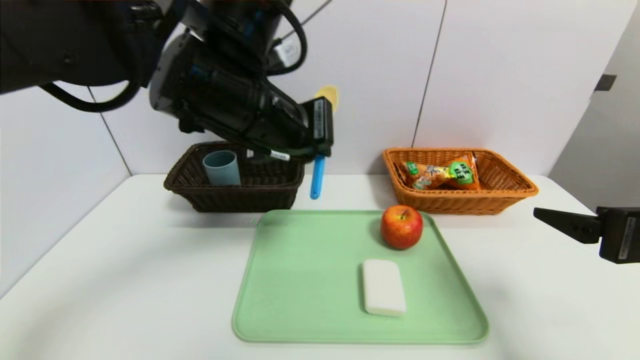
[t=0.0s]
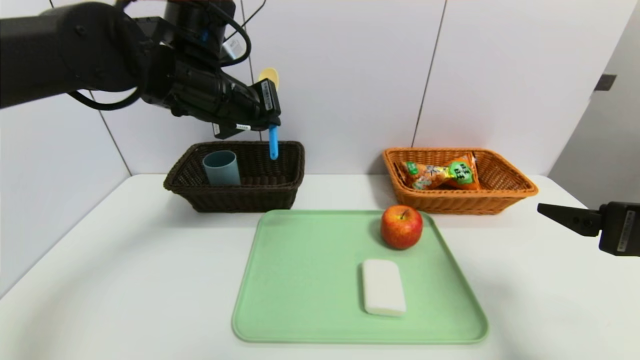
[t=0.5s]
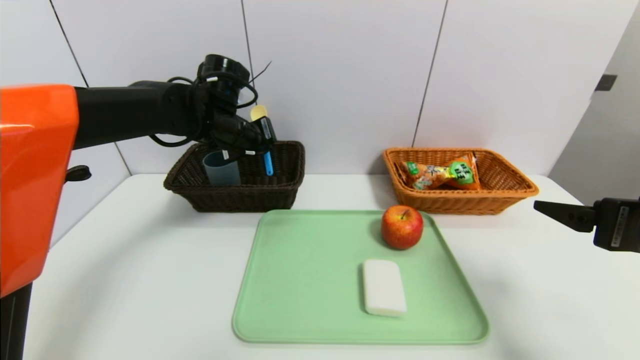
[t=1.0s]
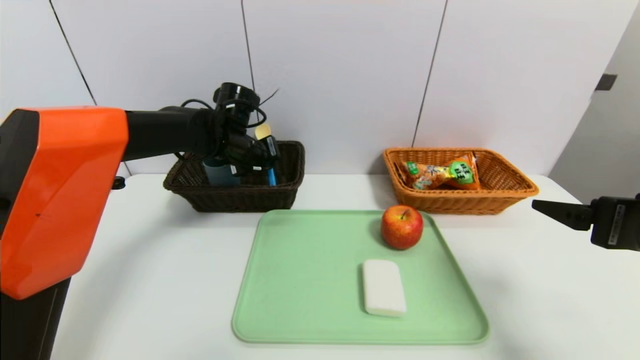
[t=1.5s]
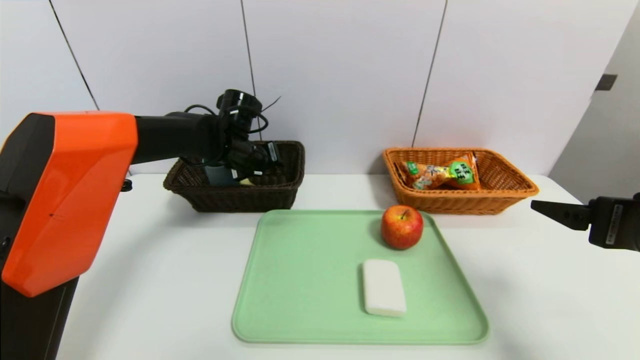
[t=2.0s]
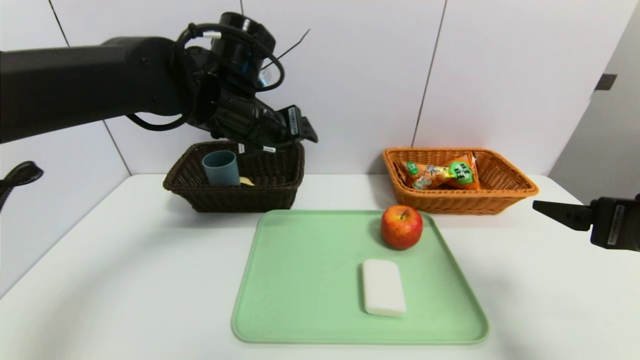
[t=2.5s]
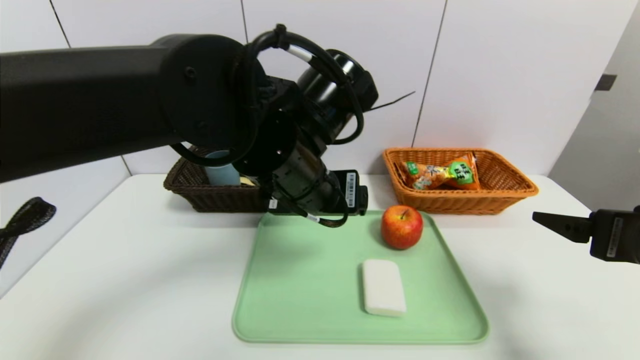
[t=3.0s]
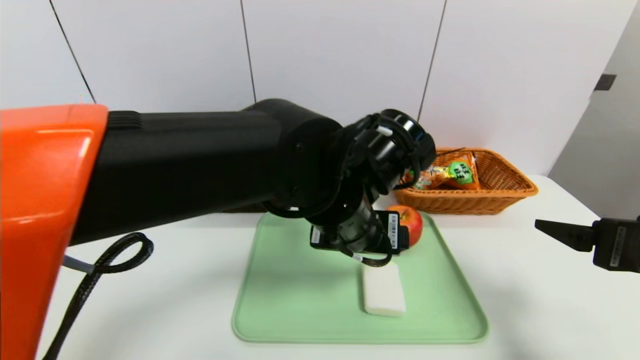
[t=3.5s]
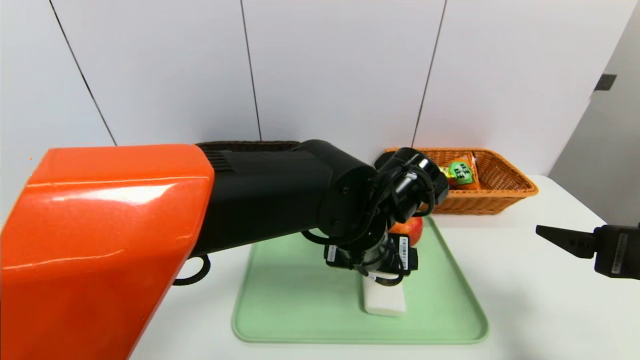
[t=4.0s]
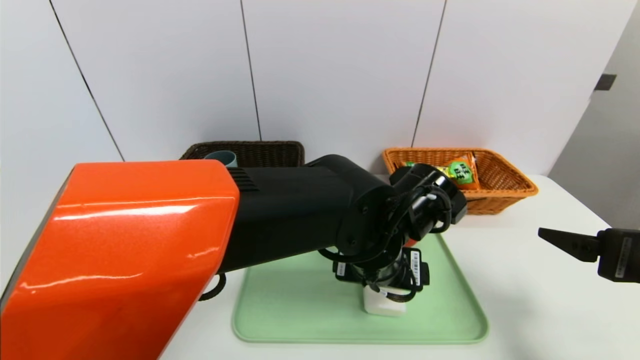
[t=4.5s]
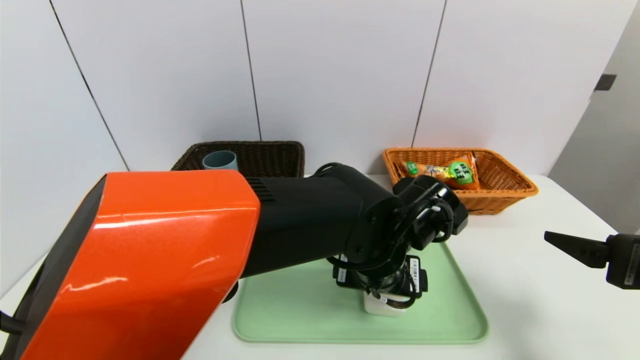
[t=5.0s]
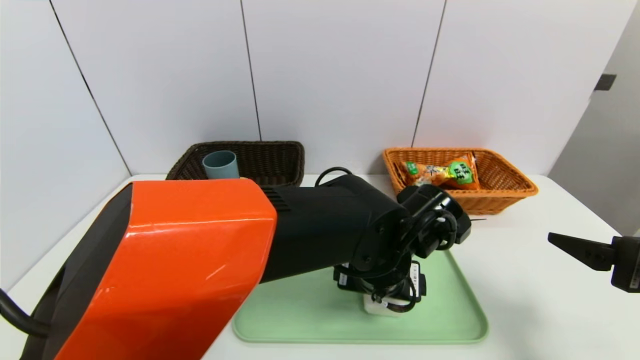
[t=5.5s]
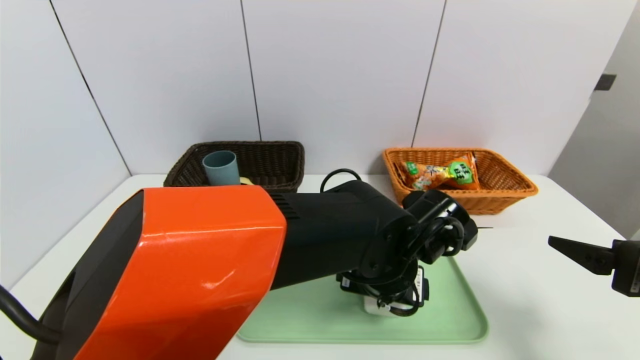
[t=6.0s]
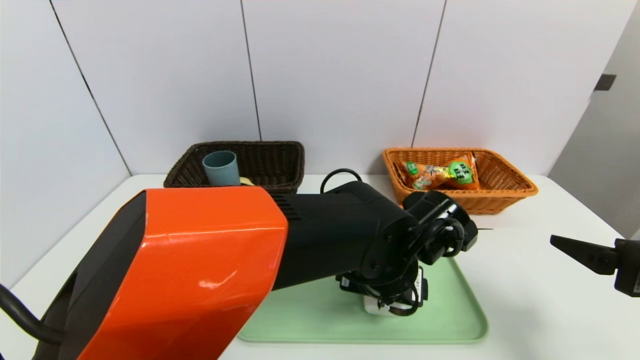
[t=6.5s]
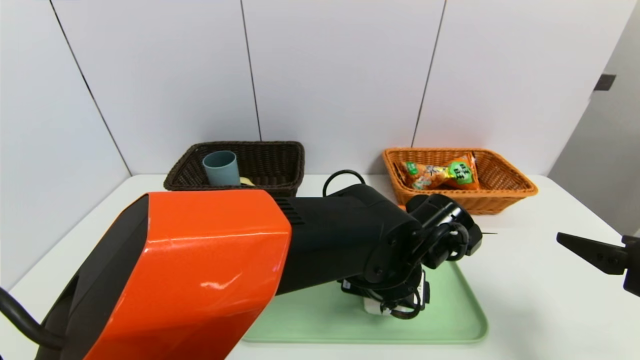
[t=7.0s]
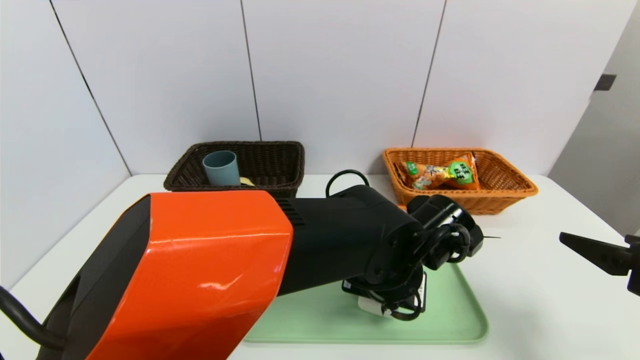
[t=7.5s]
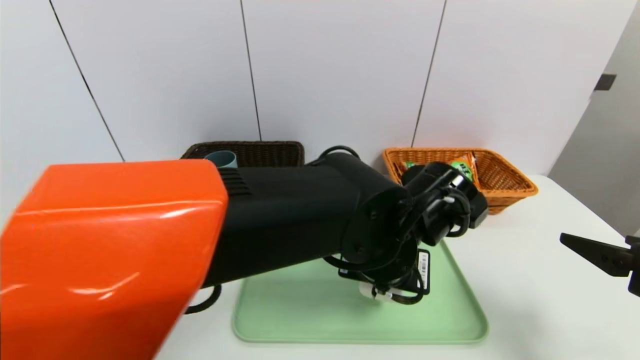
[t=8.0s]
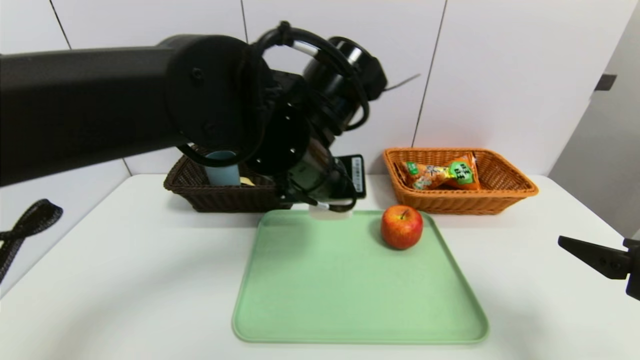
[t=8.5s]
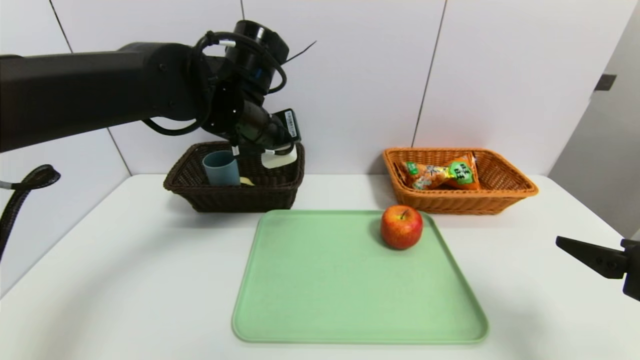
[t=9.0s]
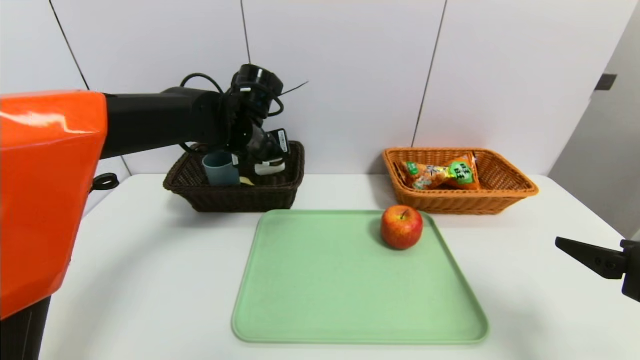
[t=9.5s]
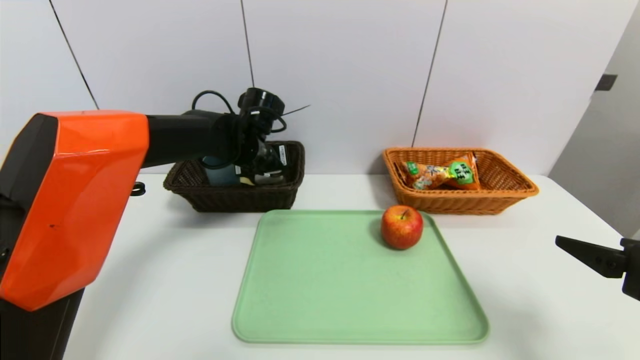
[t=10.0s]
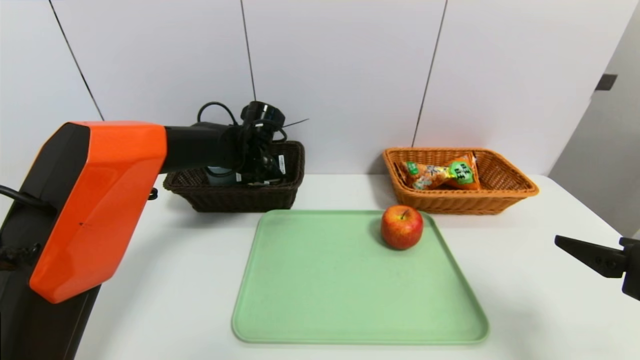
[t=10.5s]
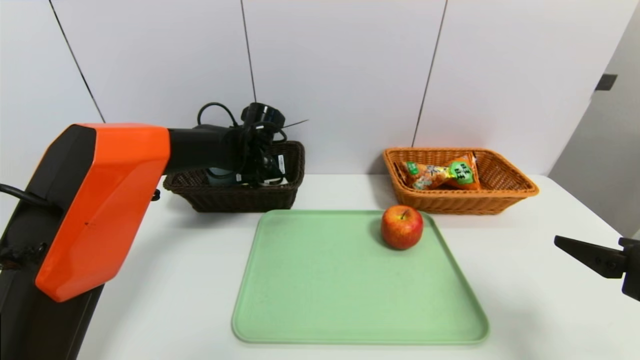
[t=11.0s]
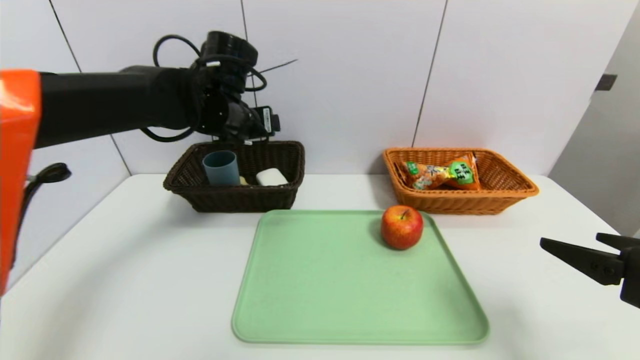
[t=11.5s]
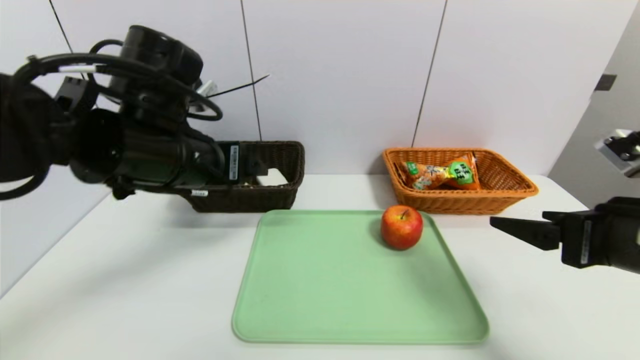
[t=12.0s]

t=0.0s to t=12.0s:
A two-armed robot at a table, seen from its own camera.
Task of the whole recording: place the food in the right basket with the right gripper, and place the non food items in the left basket with the left gripper.
Step, t=0.0s to t=2.0s: Grasp the spoon and put it in the left basket.
Step, t=2.5s to t=11.0s: Grasp the soap and put it in the left basket.
t=0.0s to t=2.0s: The left gripper heads forward and downward, covering about 25 cm, and opens its fingers.
t=2.0s to t=4.0s: The left gripper shifts some 30 cm to the right and backward, and opens up.
t=6.0s to t=8.0s: The left gripper closes its fingers.
t=8.0s to t=10.0s: The left gripper shifts approximately 25 cm forward and to the left.
t=10.0s to t=12.0s: The right gripper ends up some 5 cm from where it was; the left gripper travels backward and upward by about 20 cm, and opens up.

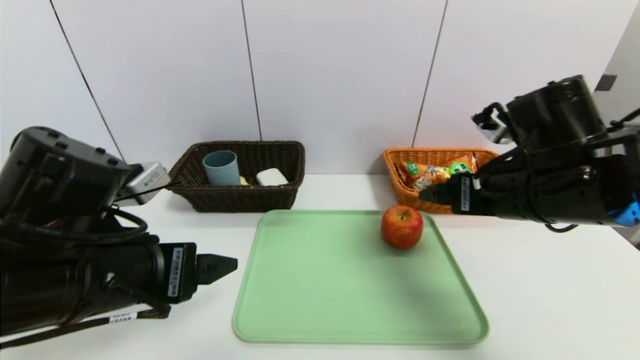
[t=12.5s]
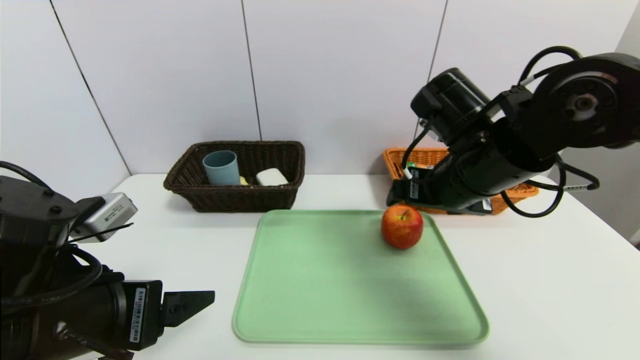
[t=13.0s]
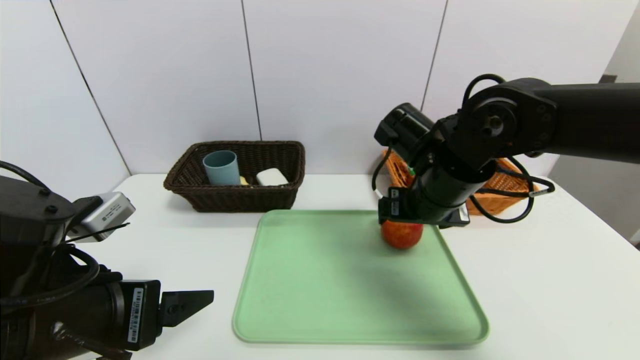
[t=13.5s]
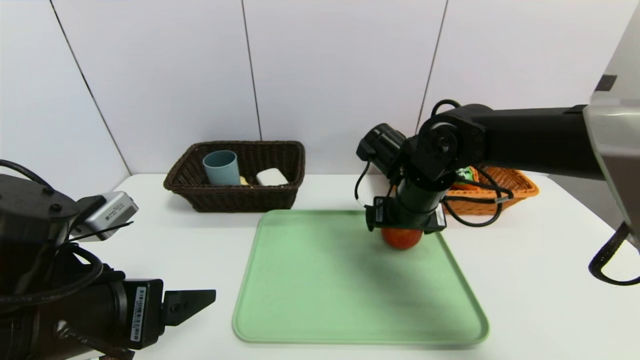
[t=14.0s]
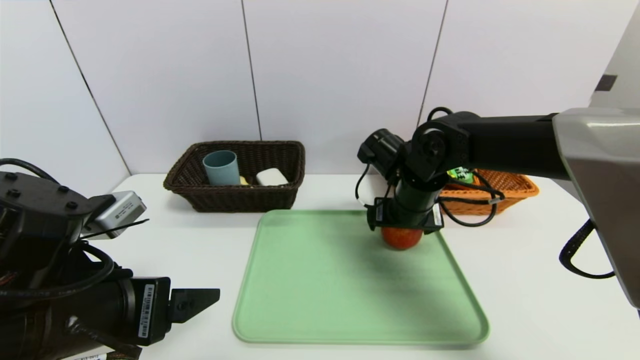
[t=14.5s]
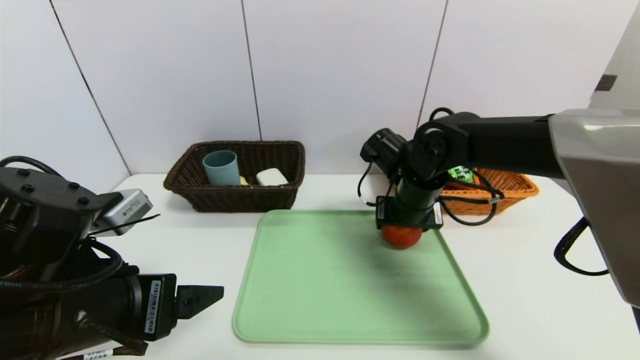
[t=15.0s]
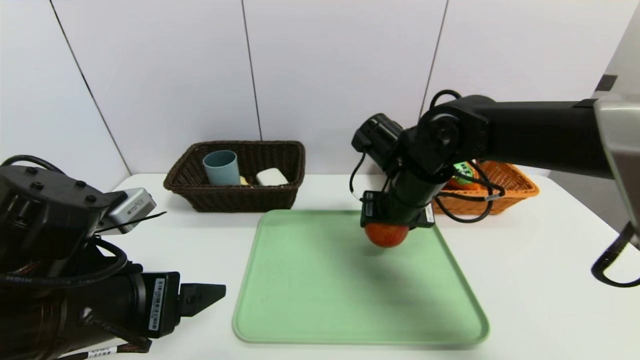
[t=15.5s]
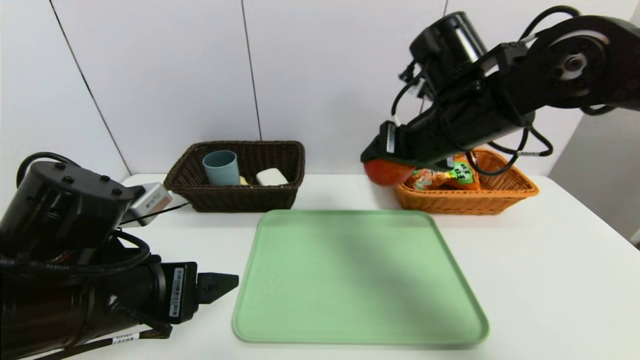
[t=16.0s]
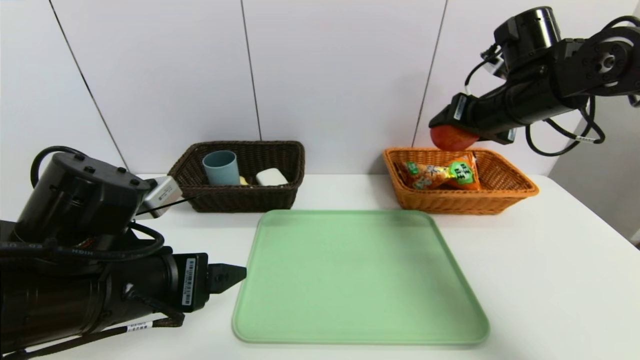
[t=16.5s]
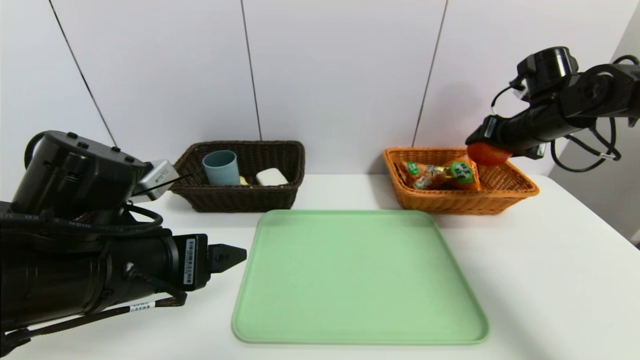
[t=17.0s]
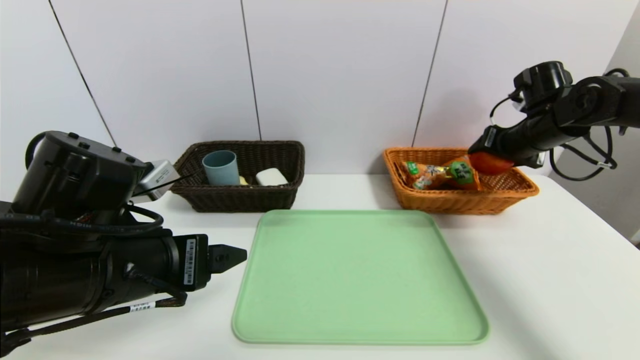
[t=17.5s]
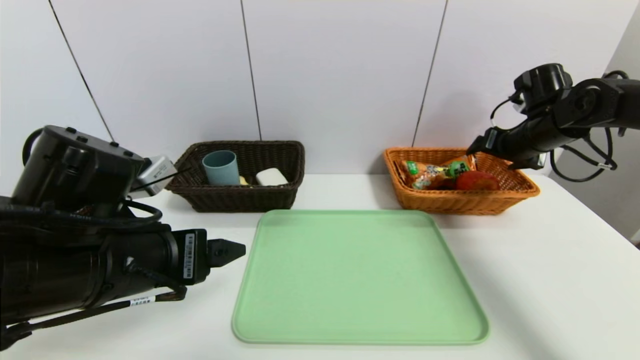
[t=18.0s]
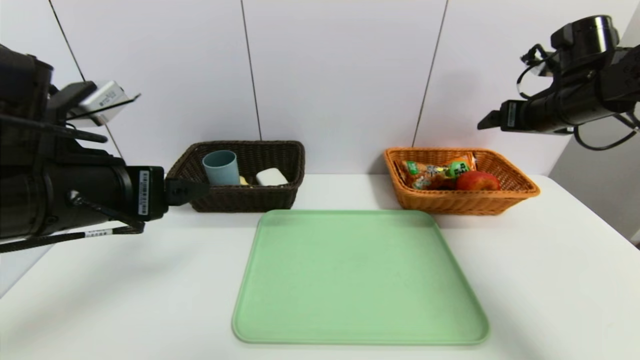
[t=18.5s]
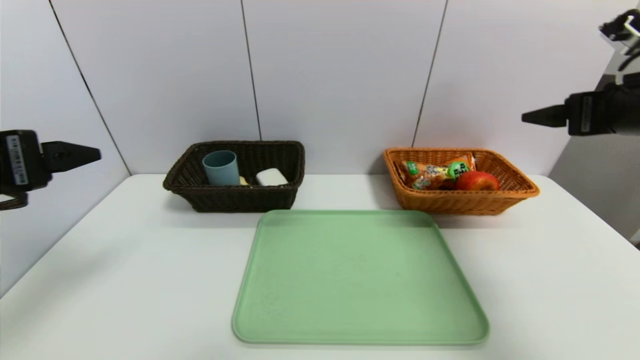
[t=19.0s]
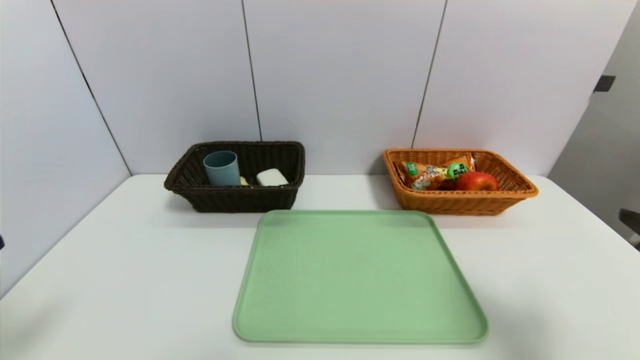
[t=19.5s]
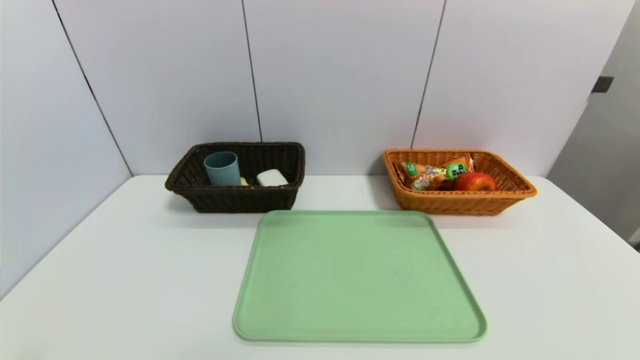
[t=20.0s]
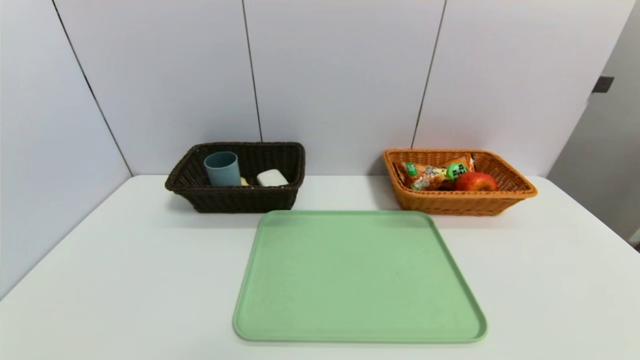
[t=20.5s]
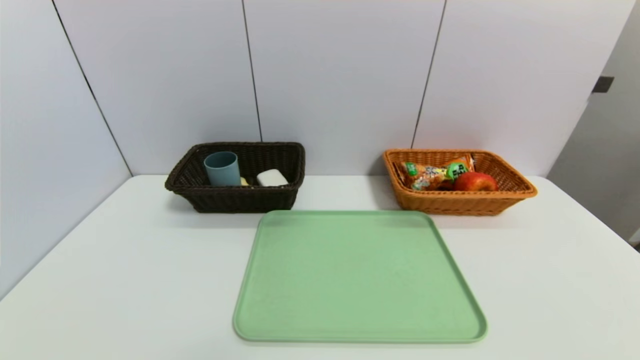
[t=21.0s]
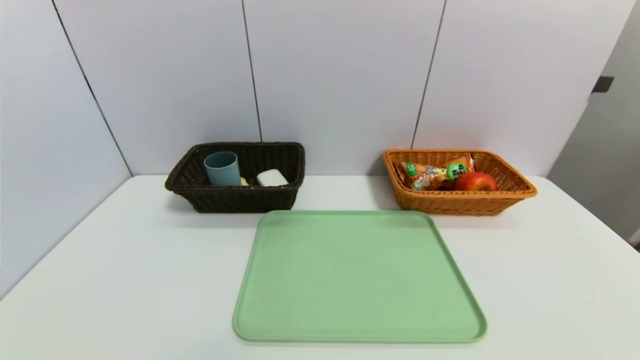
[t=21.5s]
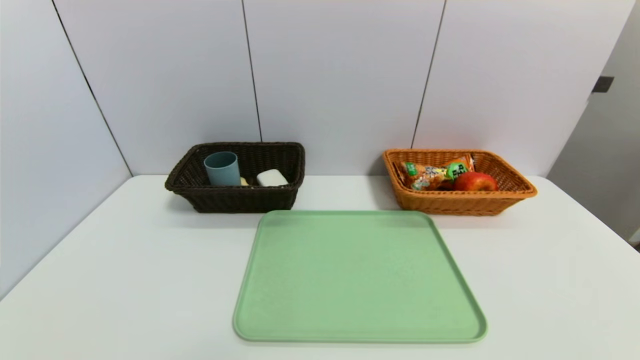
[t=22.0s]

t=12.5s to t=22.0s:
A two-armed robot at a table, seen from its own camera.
Task of the whole recording: place the food in the right basket with the right gripper, and place the non food items in the left basket with the left gripper.
Step, t=12.5s to t=18.0s: Grasp the apple and put it in the right basket.
t=12.5s to t=14.5s: The right gripper goes some 15 cm forward, to the left and downward.
t=14.5s to t=16.5s: The right gripper is displaced to the right and upward by about 20 cm, and closes its fingers.
t=16.5s to t=18.0s: The right gripper heads to the right, downward and forward, covering about 10 cm.
t=18.0s to t=20.0s: The left gripper heads backward and to the left, covering about 25 cm. The right gripper heads backward, covering some 40 cm.
